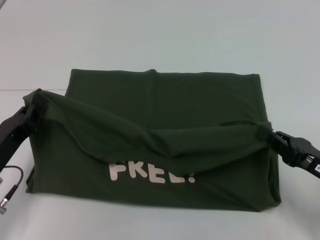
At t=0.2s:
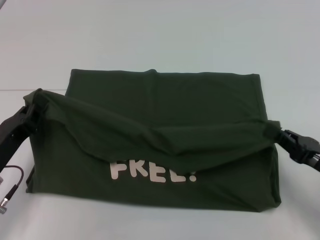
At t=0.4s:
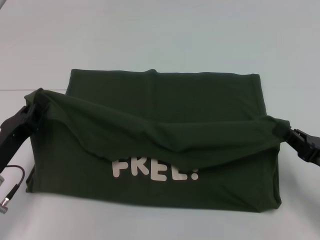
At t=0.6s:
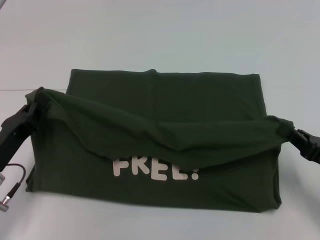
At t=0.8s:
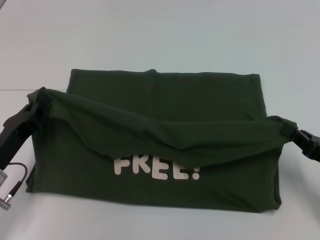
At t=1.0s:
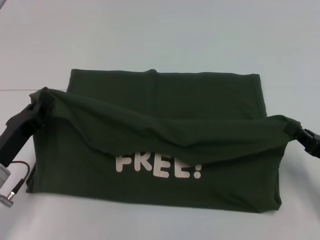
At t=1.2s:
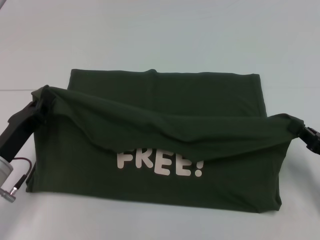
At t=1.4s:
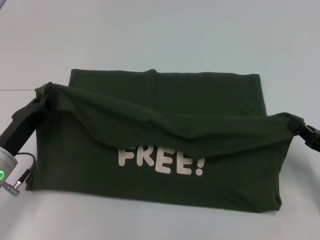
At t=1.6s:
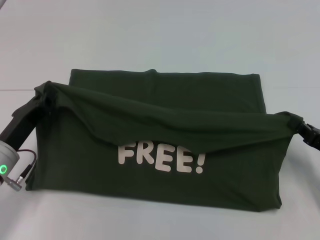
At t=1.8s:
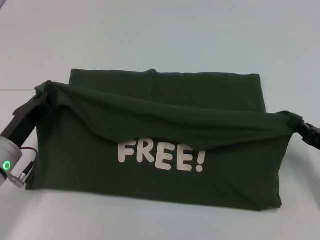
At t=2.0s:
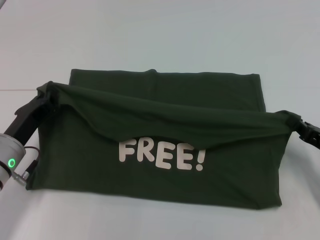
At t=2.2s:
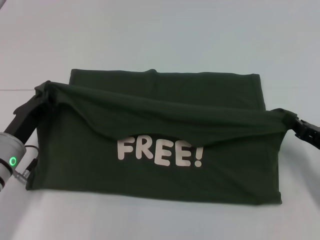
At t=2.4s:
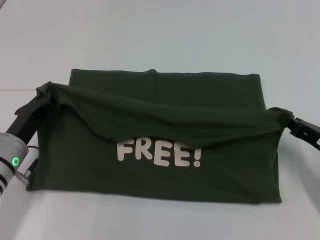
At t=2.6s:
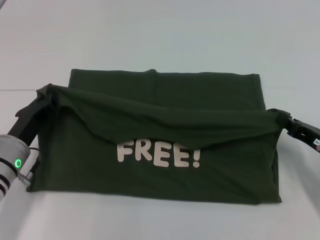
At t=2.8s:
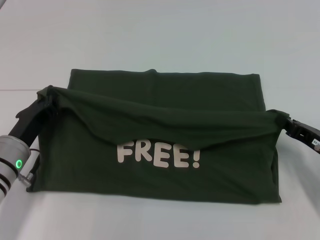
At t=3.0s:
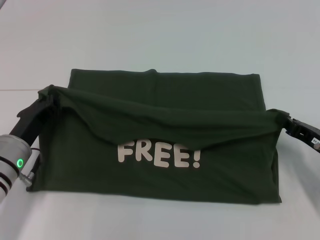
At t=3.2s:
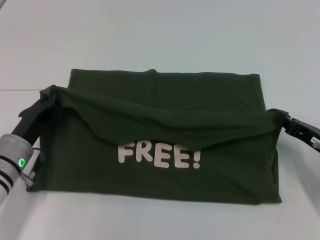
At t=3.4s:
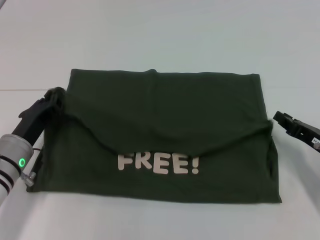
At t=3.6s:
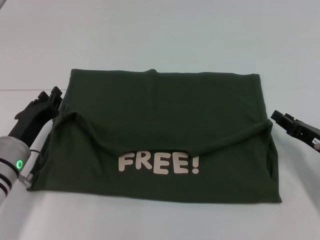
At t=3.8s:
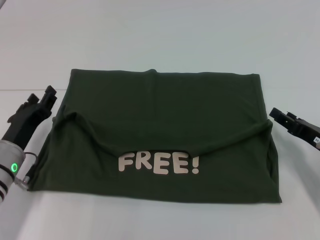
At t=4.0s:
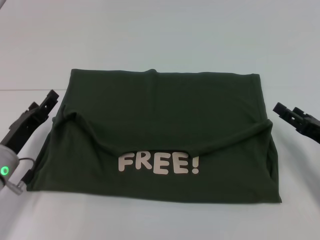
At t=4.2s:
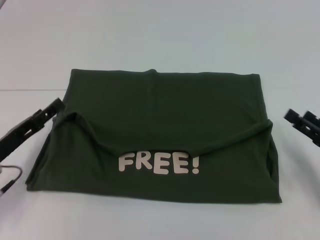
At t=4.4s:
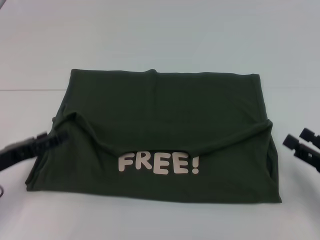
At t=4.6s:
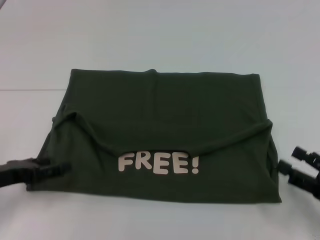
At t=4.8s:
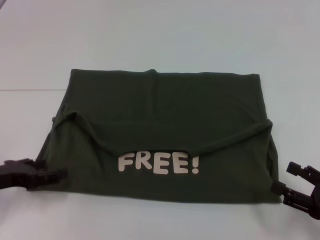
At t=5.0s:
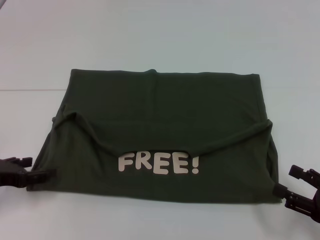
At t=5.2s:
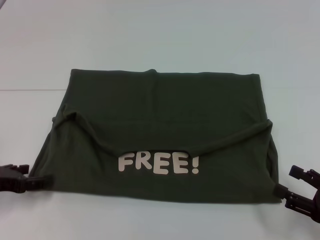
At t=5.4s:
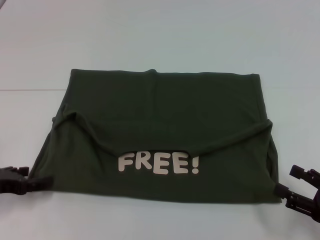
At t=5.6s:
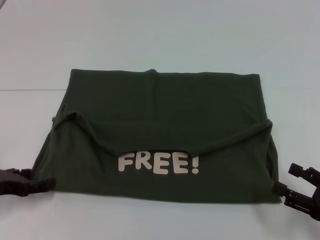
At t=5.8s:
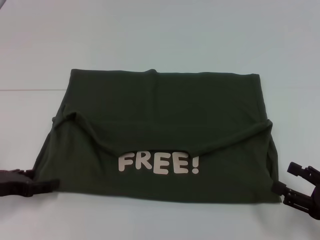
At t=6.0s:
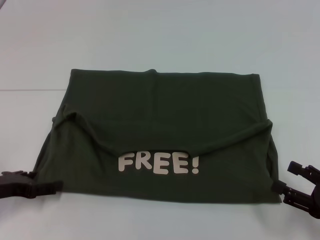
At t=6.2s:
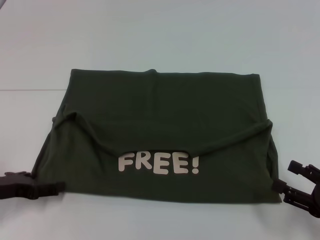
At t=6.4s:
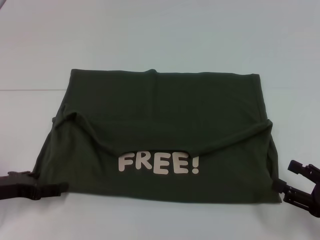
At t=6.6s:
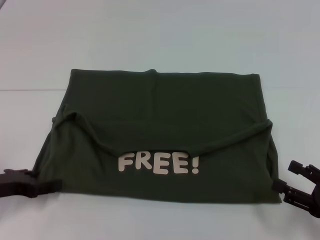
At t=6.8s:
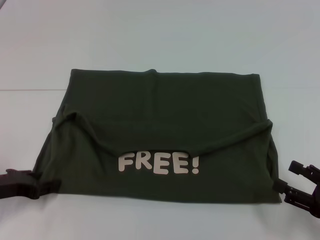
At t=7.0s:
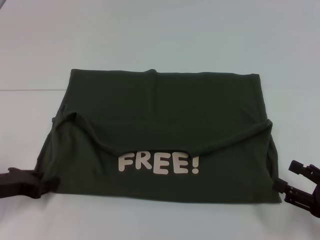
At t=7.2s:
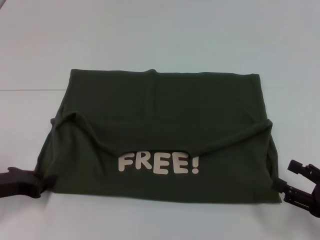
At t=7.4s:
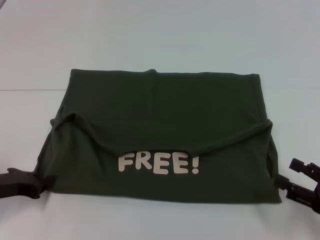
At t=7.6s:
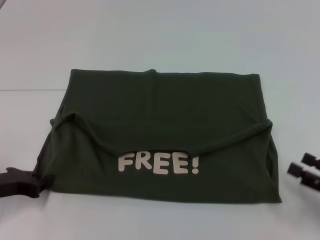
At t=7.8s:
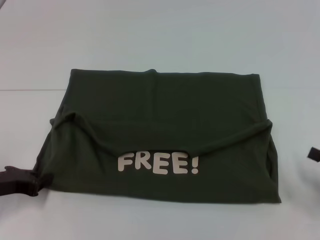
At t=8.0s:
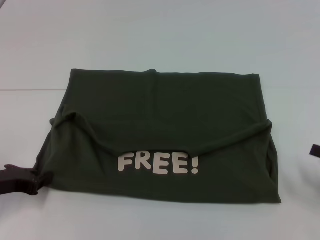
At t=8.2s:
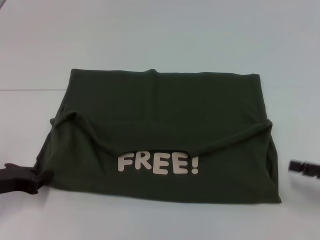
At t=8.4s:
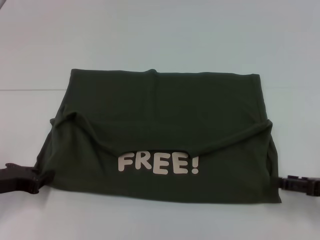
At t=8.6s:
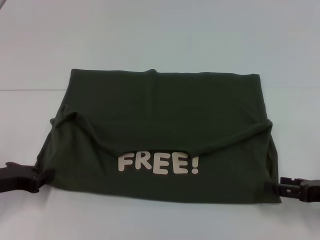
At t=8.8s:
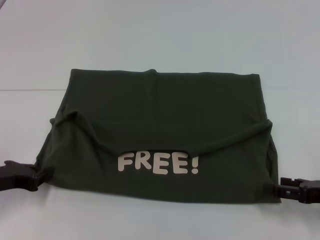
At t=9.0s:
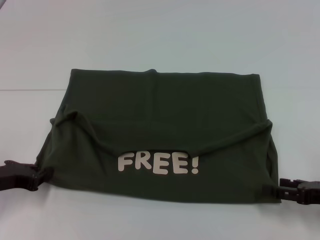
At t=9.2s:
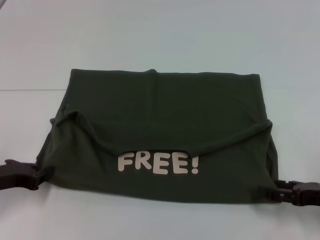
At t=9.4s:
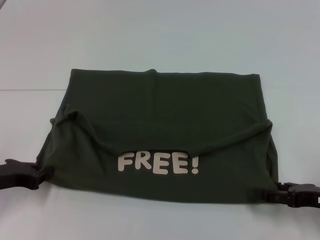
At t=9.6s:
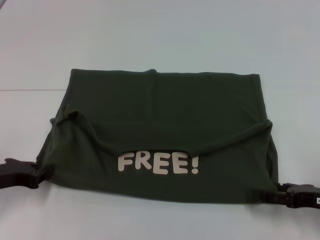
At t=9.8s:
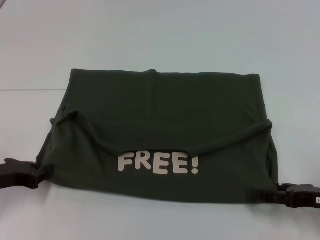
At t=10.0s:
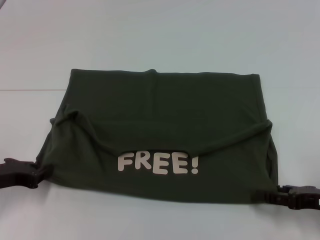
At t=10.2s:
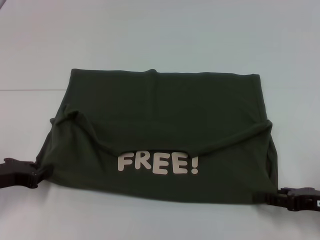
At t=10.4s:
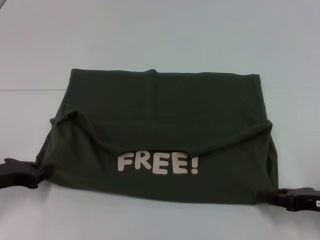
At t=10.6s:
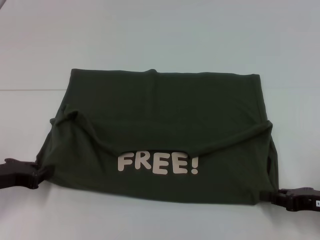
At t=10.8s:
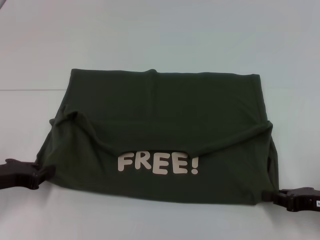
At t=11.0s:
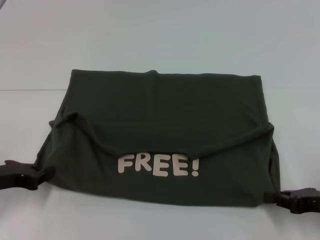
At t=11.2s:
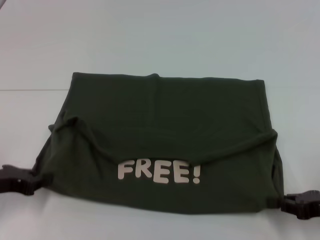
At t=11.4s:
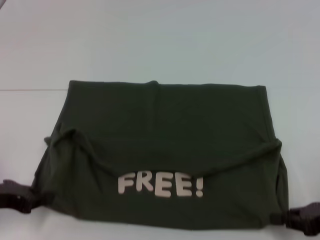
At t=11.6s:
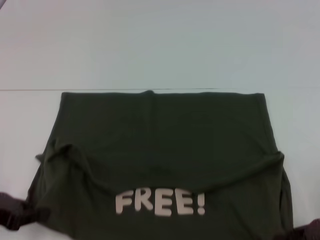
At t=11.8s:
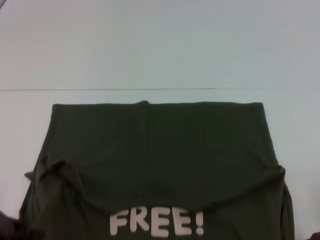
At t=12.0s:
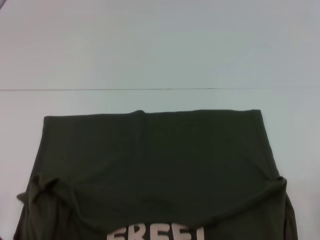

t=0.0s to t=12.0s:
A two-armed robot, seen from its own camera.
Step, t=0.0s to t=4.0s: Fold the clothes with your left hand.
Step, t=0.0s to t=4.0s: Fold the clothes with your right hand.
t=1.6s to t=3.0s: The grippers make only small movements.
t=3.0s to t=4.4s: The left gripper shifts about 5 cm to the left, and opens up. Meanwhile the right gripper goes about 10 cm backward, and opens.
t=6.0s to t=7.6s: The left gripper closes its fingers.
t=7.6s to t=9.0s: The right gripper ends up approximately 5 cm from where it was.
t=9.0s to t=10.4s: The right gripper closes.
t=10.4s to t=12.0s: The right gripper changes place by approximately 5 cm, and closes up. Meanwhile the left gripper travels backward by some 5 cm.

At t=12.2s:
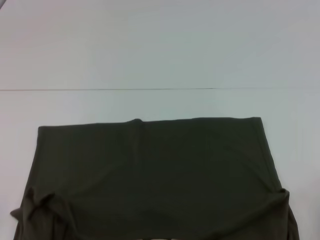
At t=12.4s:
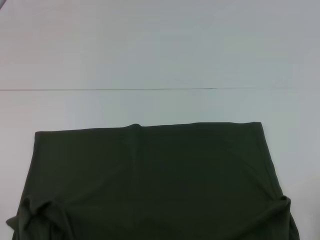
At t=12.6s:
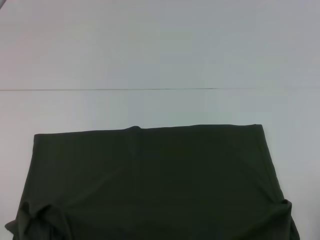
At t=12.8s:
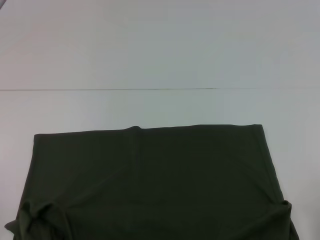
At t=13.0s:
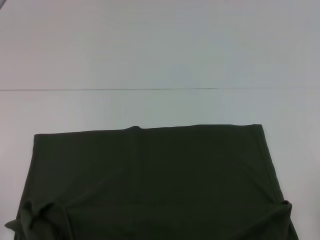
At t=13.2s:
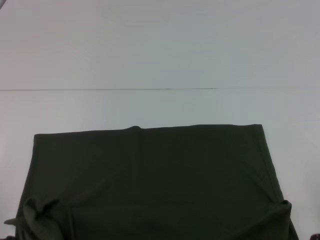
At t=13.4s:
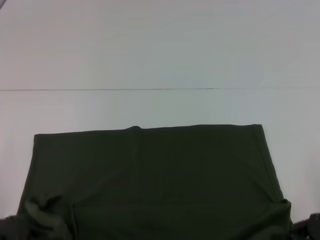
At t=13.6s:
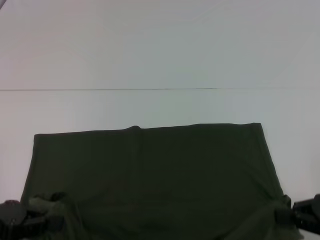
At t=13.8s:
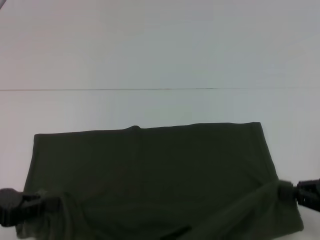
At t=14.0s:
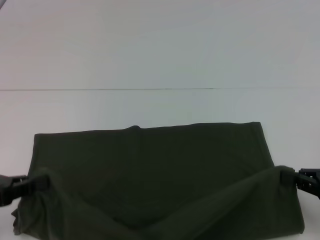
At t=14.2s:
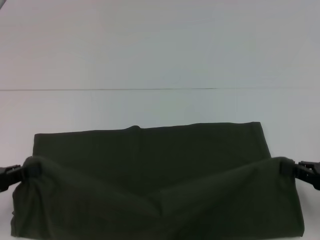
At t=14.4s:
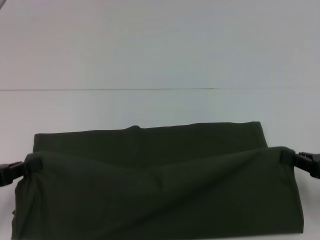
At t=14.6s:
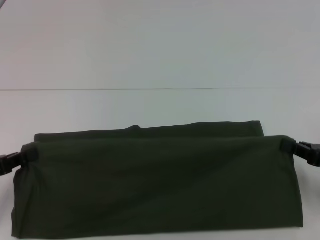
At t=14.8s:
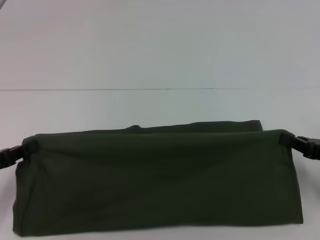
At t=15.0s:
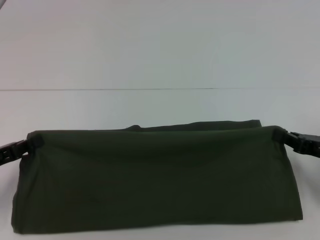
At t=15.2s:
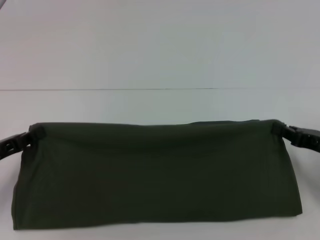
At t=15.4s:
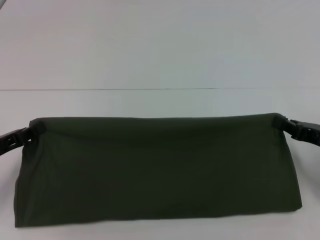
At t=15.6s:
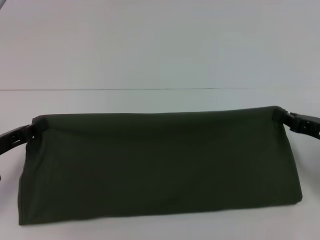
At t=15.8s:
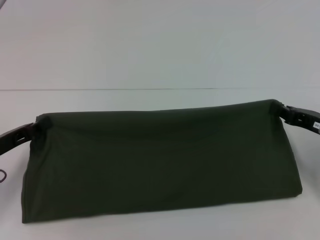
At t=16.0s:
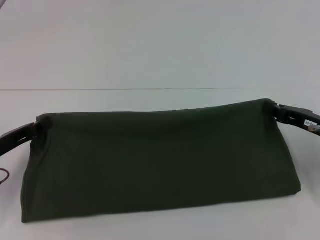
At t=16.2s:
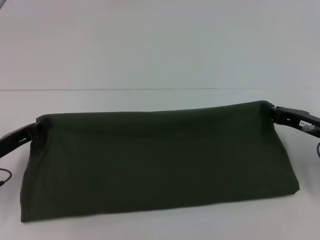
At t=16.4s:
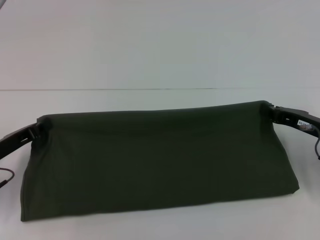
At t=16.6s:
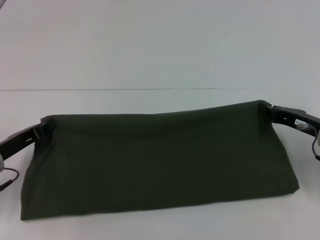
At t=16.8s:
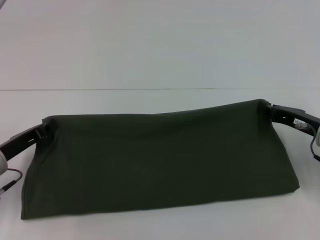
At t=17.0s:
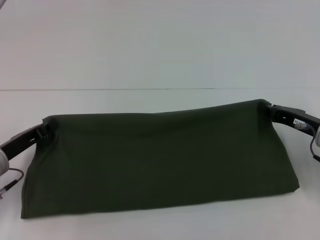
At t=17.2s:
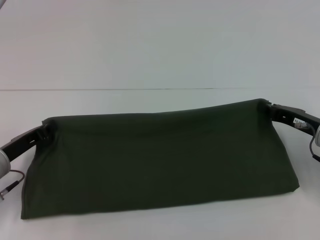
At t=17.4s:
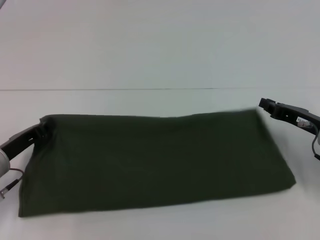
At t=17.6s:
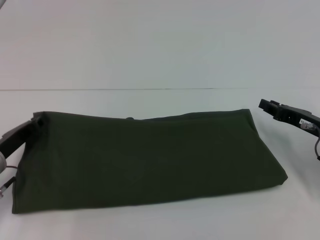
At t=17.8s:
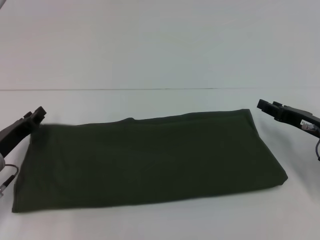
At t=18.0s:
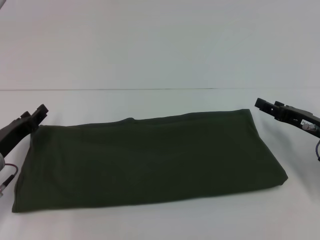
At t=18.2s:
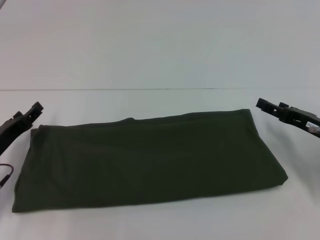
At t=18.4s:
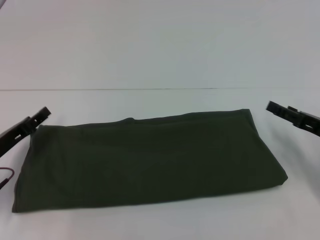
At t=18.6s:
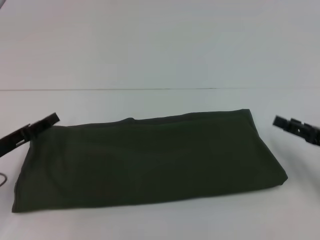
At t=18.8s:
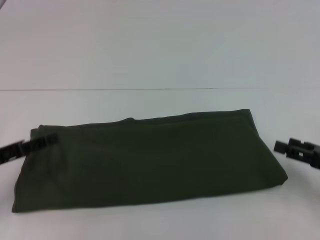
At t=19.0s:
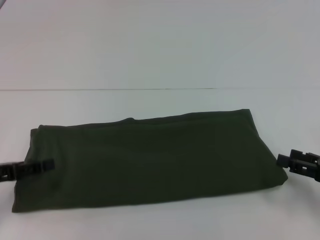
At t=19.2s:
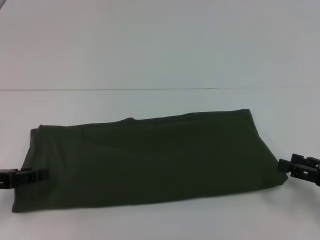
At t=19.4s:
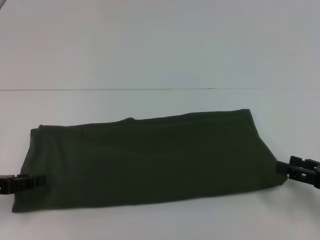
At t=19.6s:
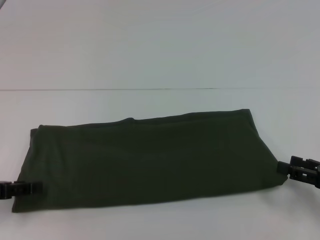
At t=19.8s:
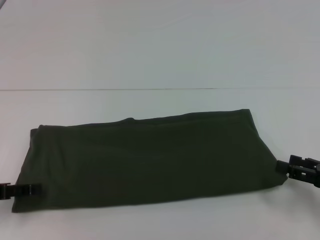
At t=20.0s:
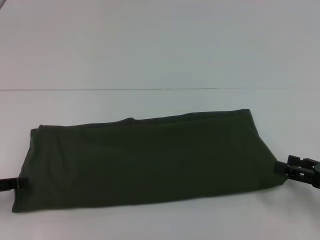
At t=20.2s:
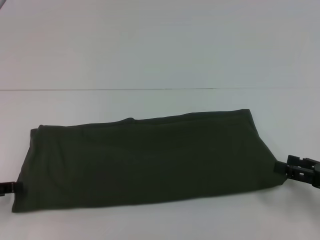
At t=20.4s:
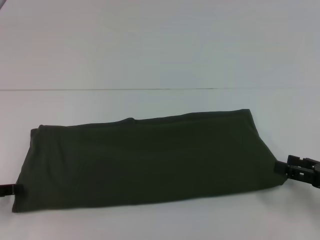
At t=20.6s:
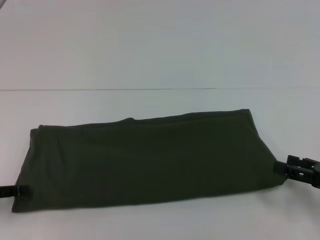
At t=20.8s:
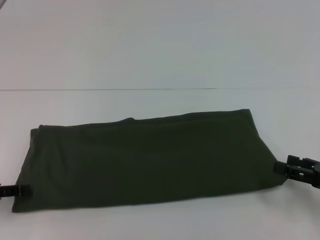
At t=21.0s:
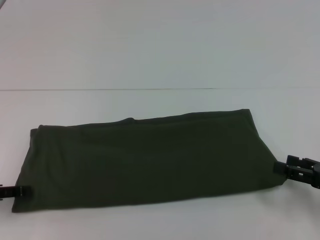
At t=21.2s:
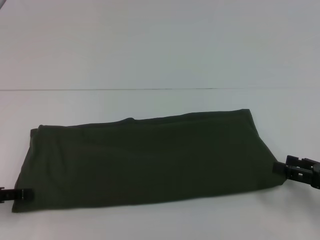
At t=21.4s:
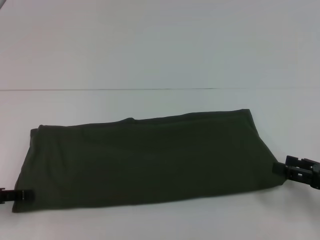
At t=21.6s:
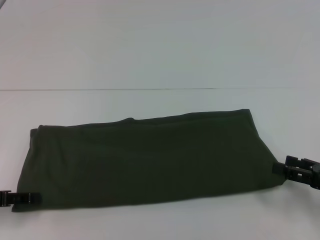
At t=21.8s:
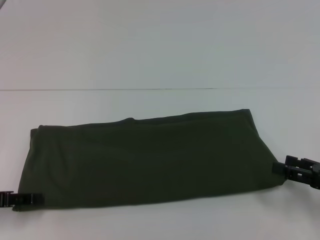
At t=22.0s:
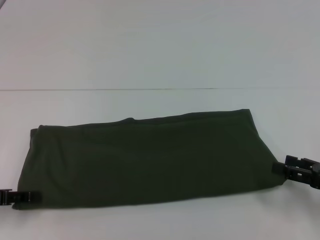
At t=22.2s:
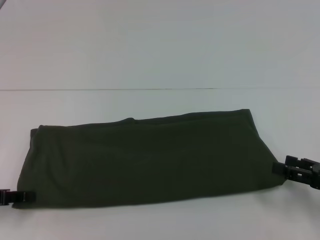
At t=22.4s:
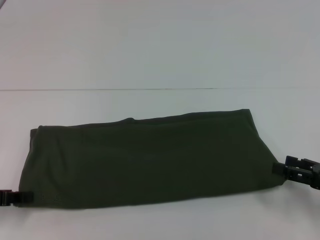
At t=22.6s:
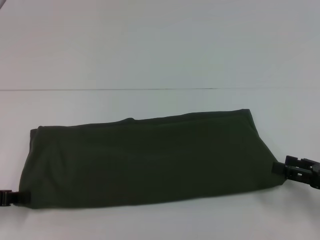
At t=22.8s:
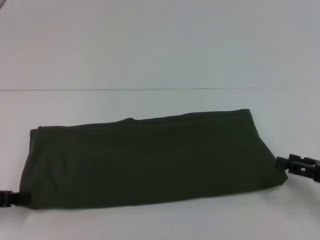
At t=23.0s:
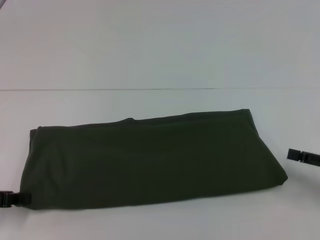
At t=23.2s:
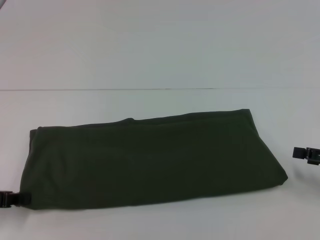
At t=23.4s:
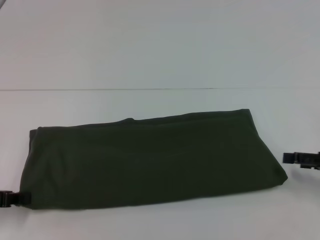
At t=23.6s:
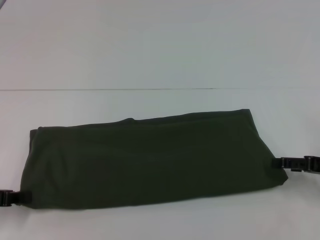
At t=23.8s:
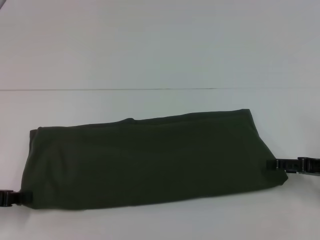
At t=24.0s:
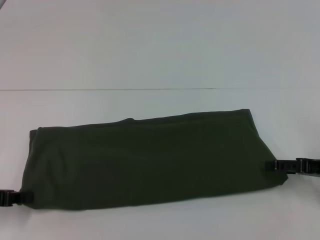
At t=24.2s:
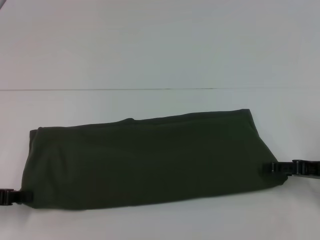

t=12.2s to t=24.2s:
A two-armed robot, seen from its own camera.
Step, t=12.6s to t=18.2s: Fold the clothes with your right hand.
t=13.8s to t=15.2s: The two grippers go roughly 5 cm forward.
t=15.2s to t=16.6s: The left gripper changes place by approximately 5 cm. The right gripper moves roughly 5 cm.
t=16.6s to t=18.2s: The left gripper opens up; the right gripper opens its fingers.
t=18.2s to t=19.8s: The left gripper shifts some 10 cm to the left, upward and backward. The right gripper shifts about 10 cm backward.
t=21.2s to t=22.6s: The left gripper closes.
t=22.6s to t=24.2s: The right gripper moves forward, approximately 5 cm.
